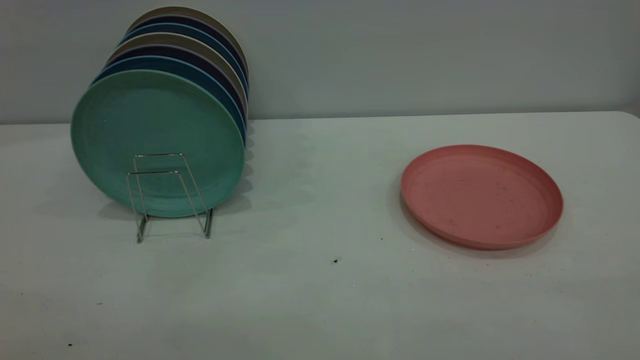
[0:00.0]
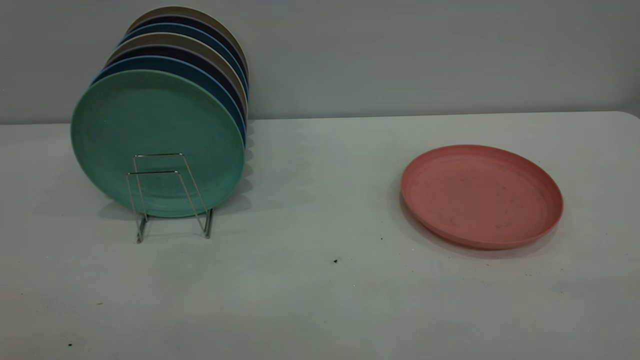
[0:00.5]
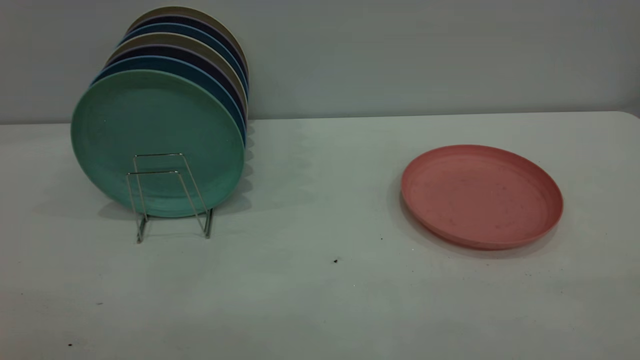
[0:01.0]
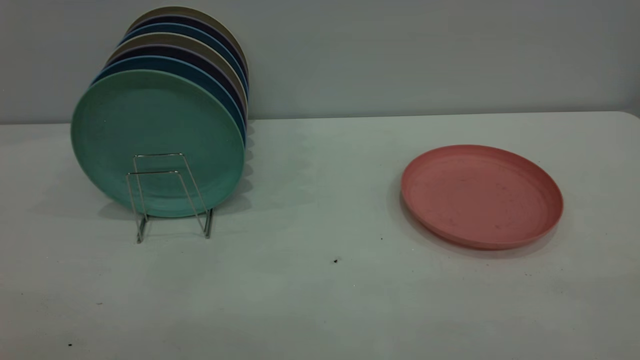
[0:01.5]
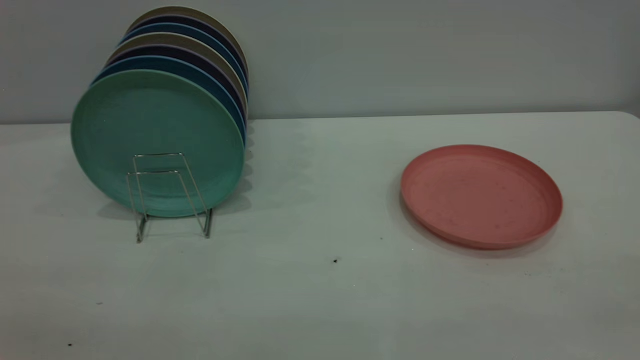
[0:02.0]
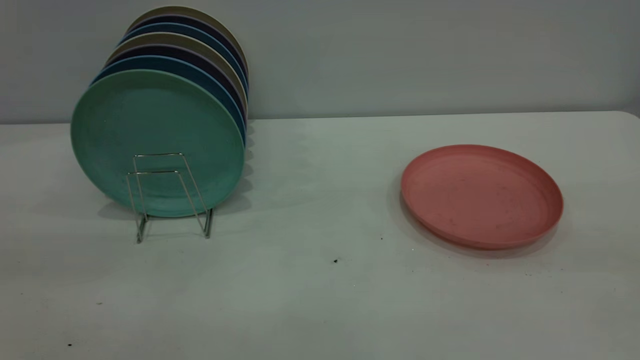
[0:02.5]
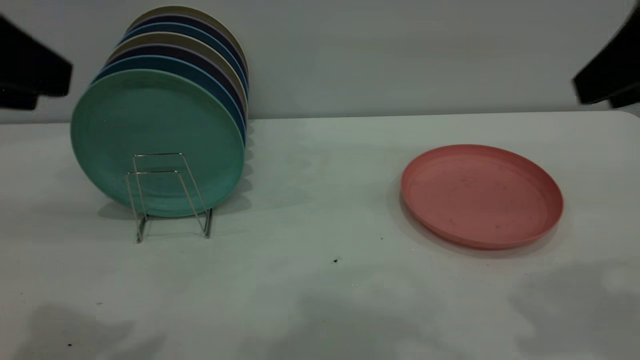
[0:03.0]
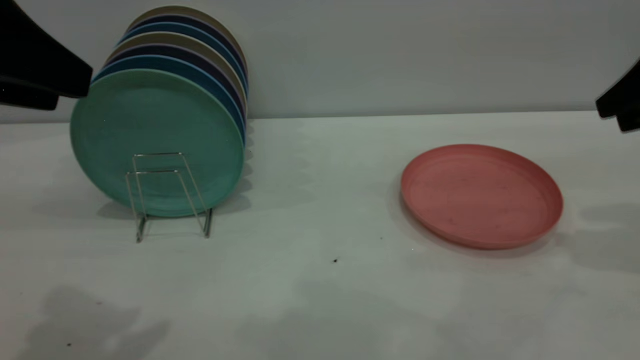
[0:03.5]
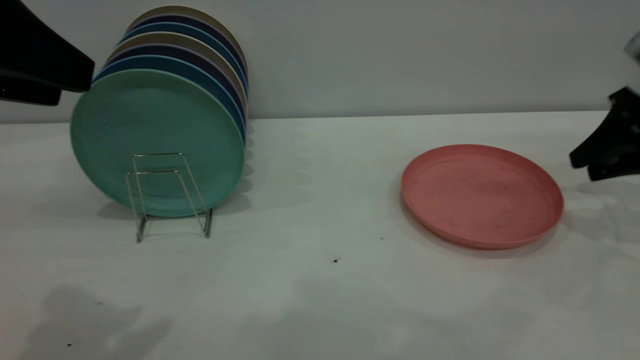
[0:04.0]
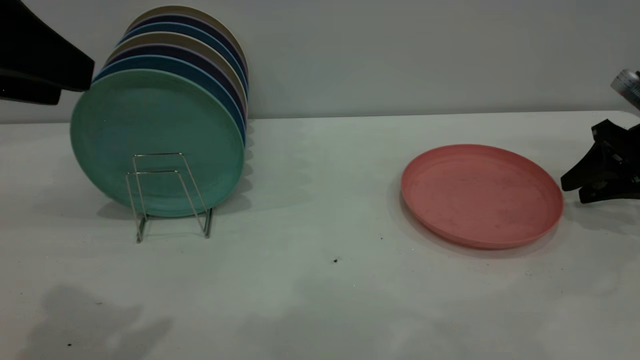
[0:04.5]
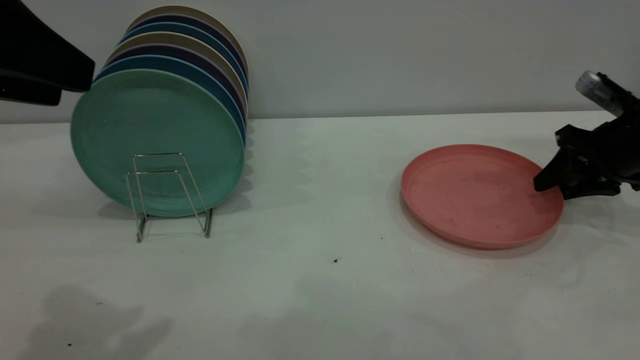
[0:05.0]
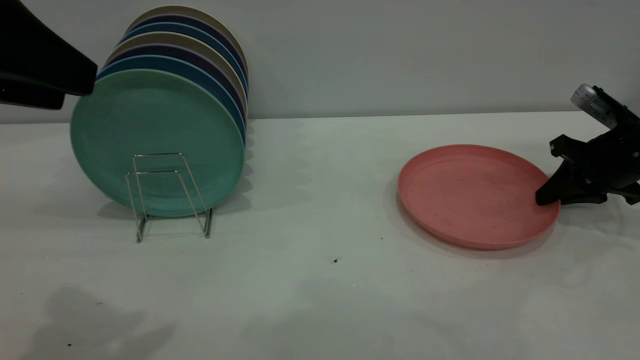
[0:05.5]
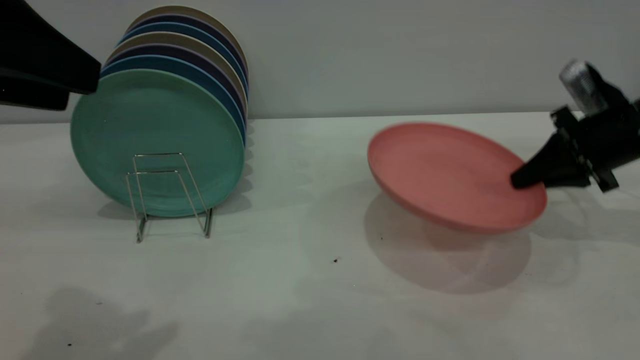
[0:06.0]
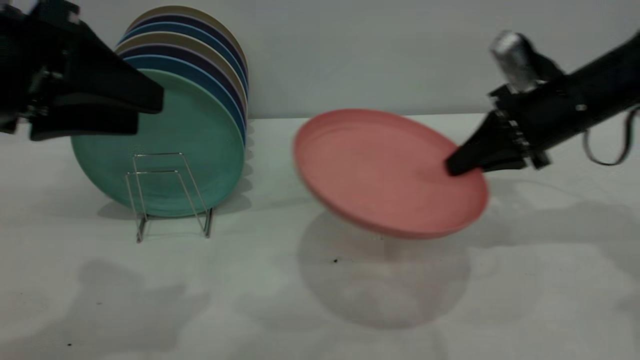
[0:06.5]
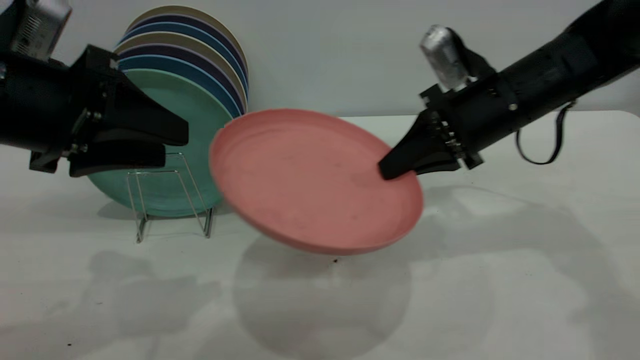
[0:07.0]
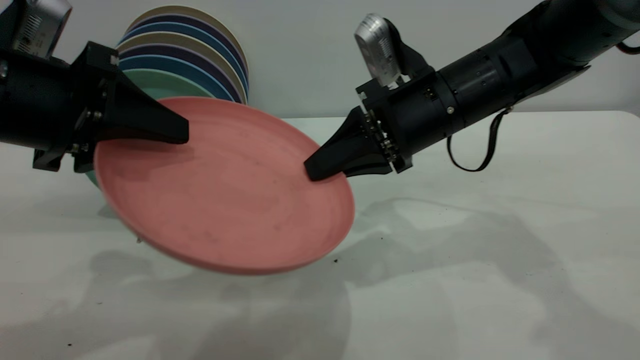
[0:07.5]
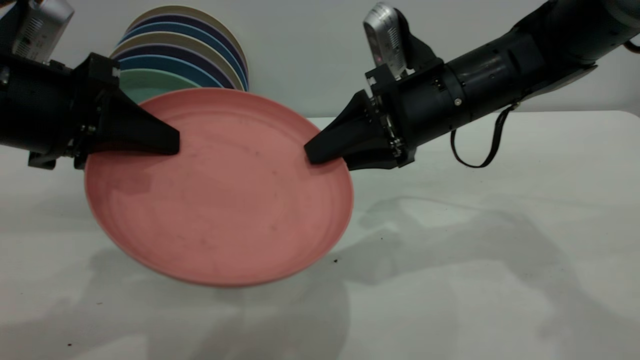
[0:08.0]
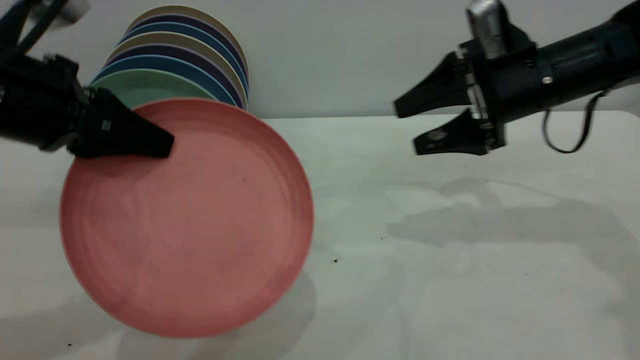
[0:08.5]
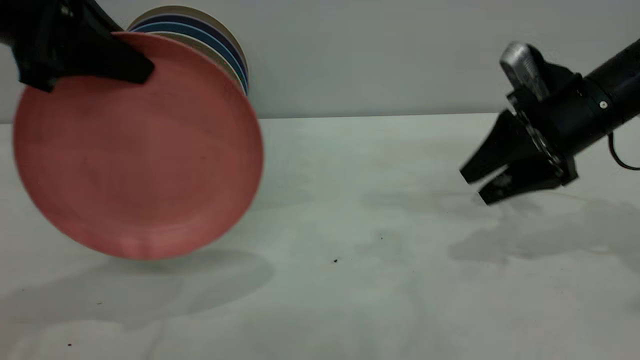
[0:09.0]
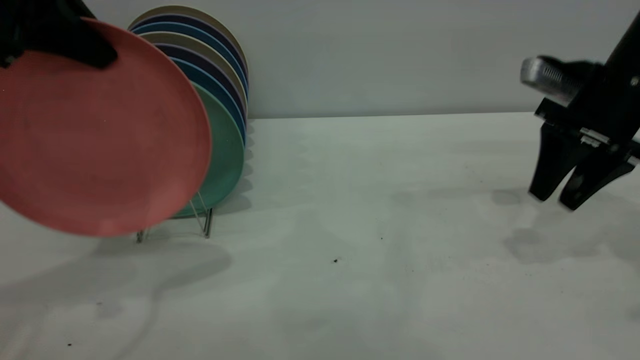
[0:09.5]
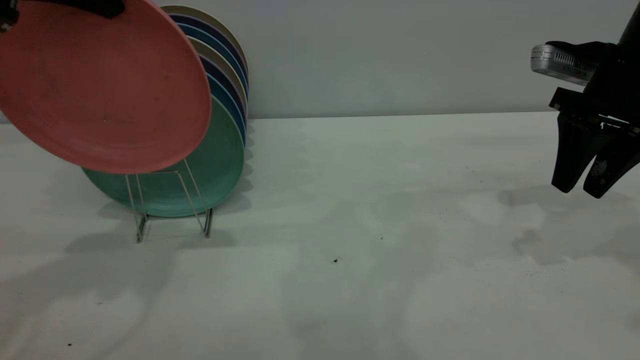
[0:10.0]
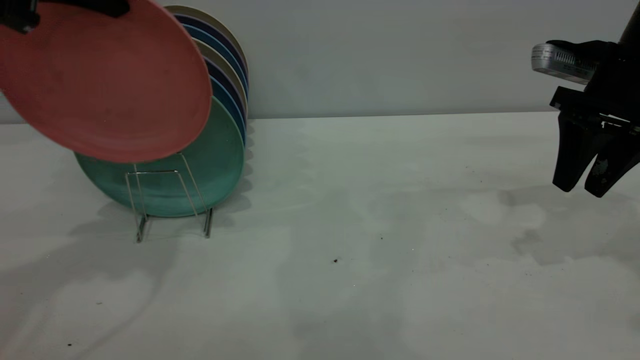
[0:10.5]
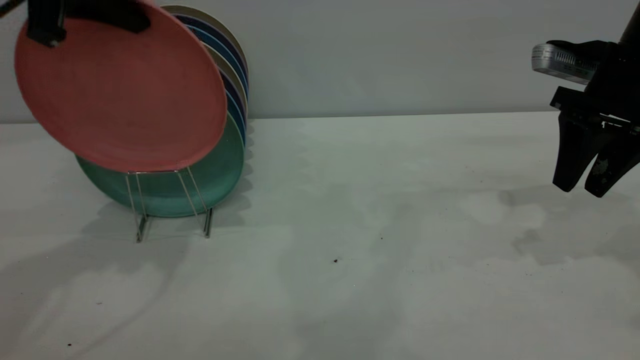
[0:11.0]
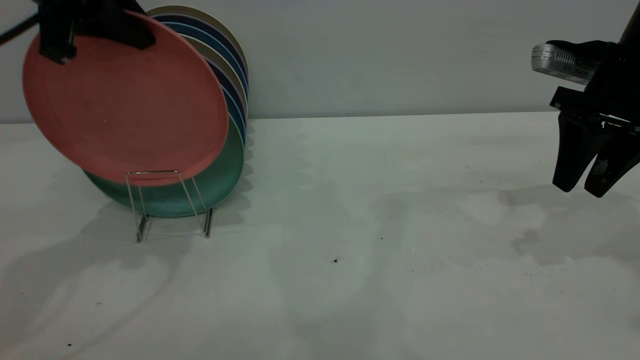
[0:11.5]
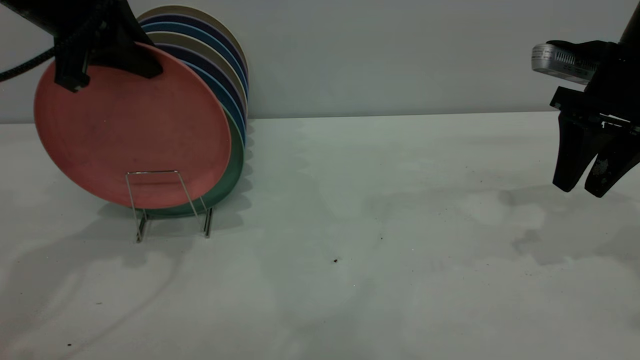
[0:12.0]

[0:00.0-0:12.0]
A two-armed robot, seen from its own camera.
Task of the whole recording: the right gripper grasp the pink plate, the right gripper pass the pink plate to the left gripper, and the left gripper place the pink plate on the plate rack.
Step, 0:00.0 to 0:06.0: Pick up the plate with the right gripper.
Step, 0:06.5 to 0:10.0: Pass the plate from the right gripper to the left gripper.
0:02.0 to 0:04.0: The left gripper travels forward by approximately 20 cm. Meanwhile the right gripper travels forward and downward by roughly 50 cm.
0:04.0 to 0:06.0: The right gripper is displaced to the left by some 5 cm, and closes.
0:06.0 to 0:08.0: The right gripper moves to the left, some 20 cm, and opens up, while the left gripper moves downward and forward, about 10 cm, and closes its fingers.
0:08.0 to 0:10.0: The left gripper travels upward and forward by approximately 15 cm, while the right gripper moves to the right, roughly 15 cm.
0:10.0 to 0:12.0: The left gripper shifts about 10 cm downward and forward.

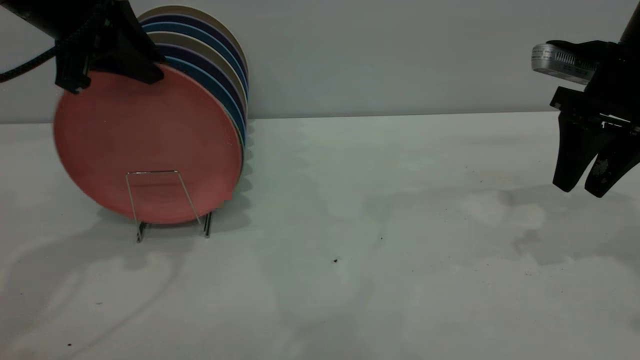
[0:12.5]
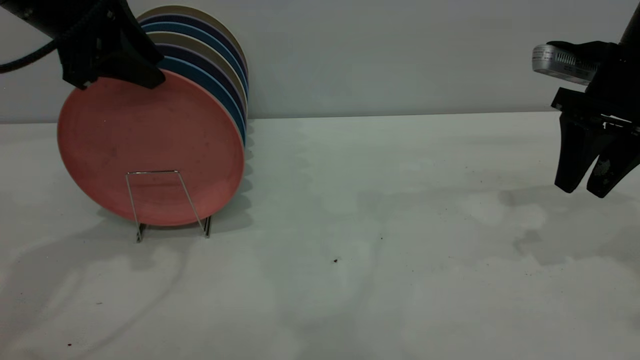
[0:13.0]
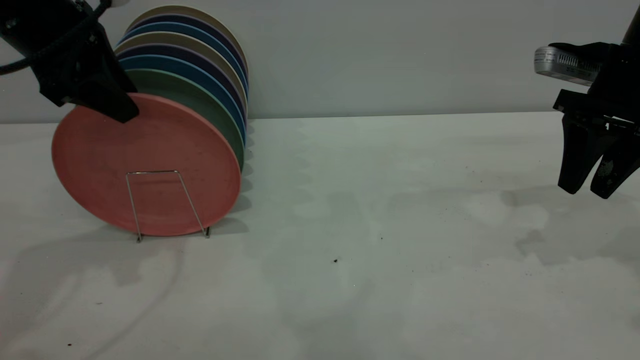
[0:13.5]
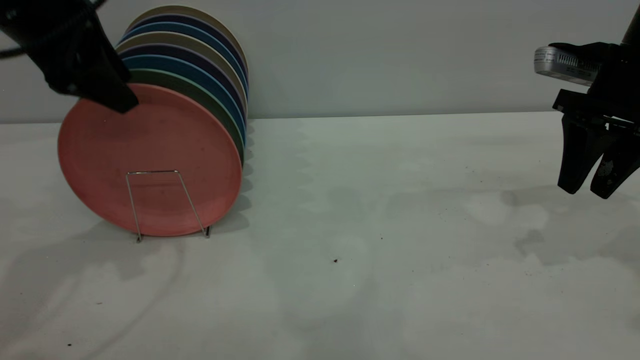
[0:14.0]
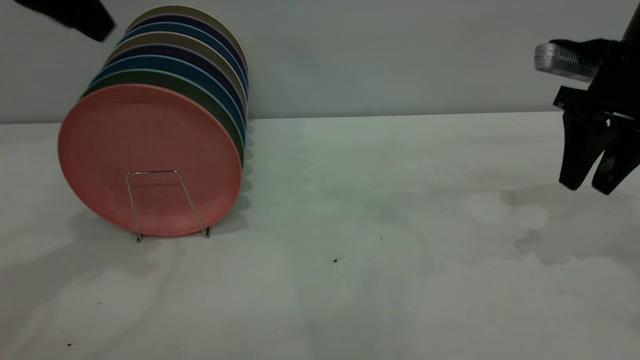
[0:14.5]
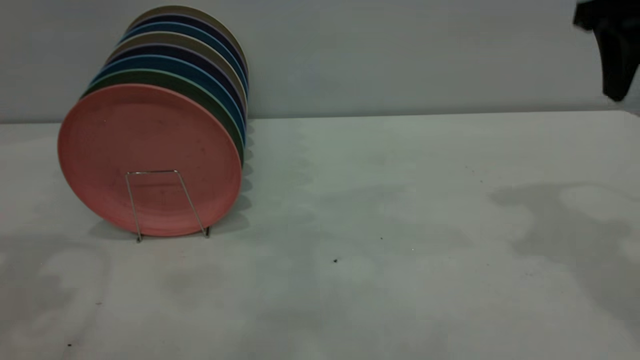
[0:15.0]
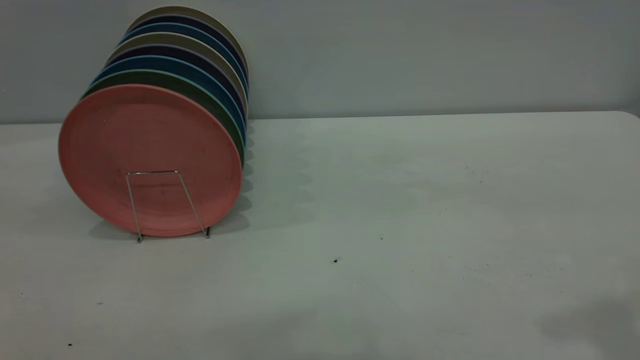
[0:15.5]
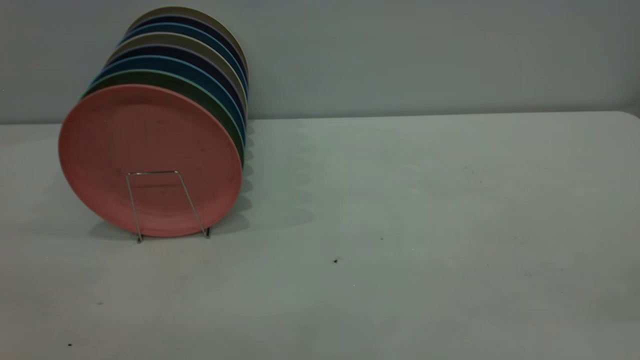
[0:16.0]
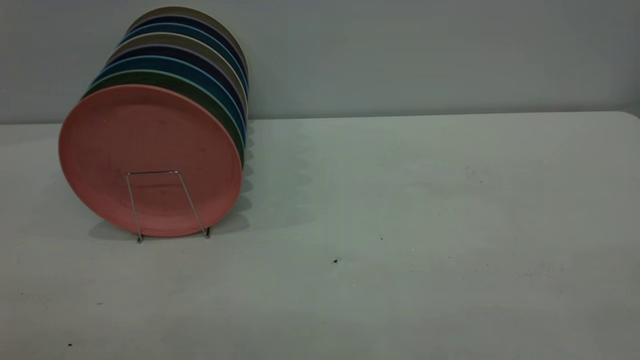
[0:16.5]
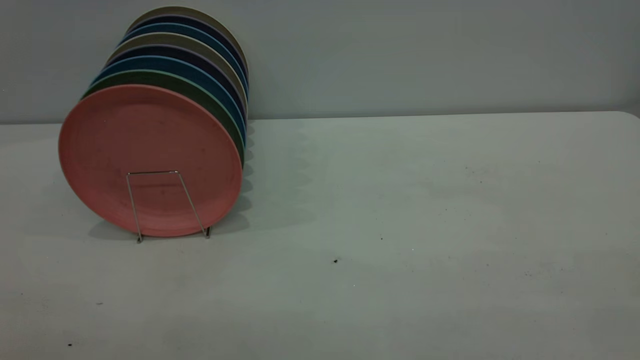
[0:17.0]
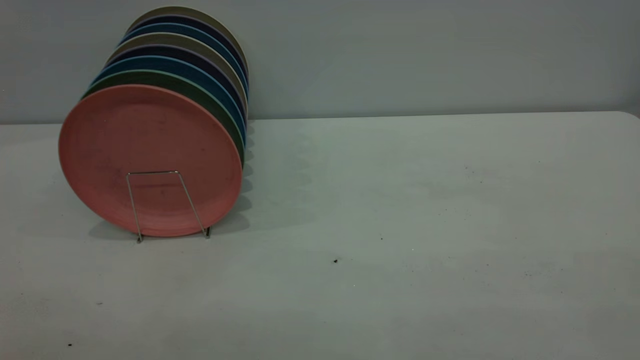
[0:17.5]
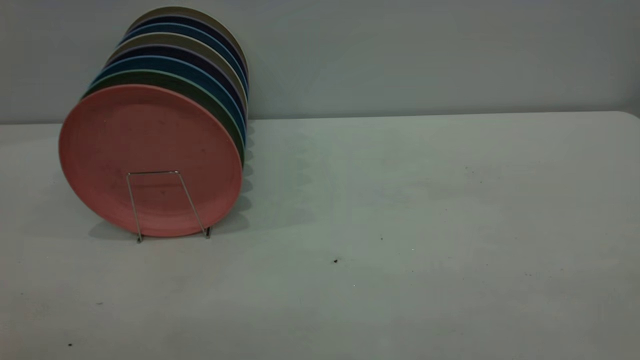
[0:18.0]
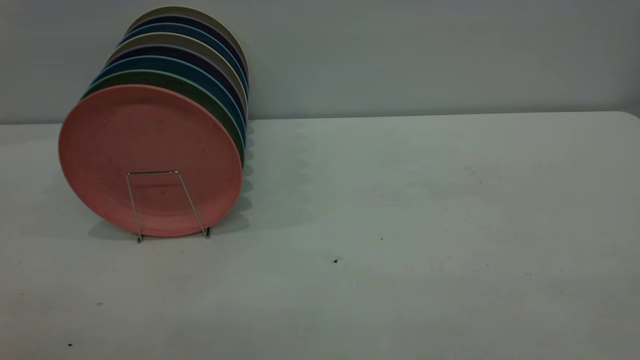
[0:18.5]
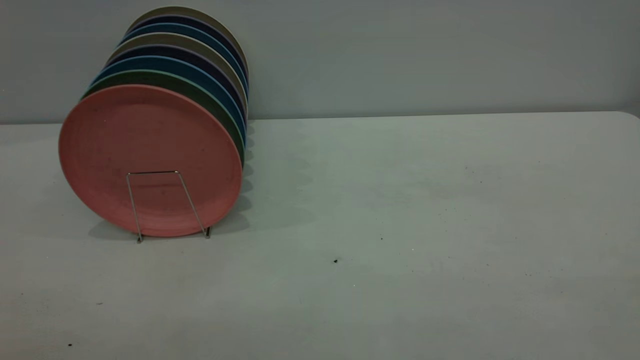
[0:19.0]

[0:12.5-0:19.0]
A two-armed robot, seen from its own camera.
Task of the whole recording: the right gripper grasp the pink plate, the right gripper pass the pink plate to the left gripper, and the left gripper place the pink plate on the plate rack.
Step, 0:12.5 to 0:14.5: Place the plate on the shelf.
0:12.5 to 0:14.5: The left gripper travels upward by about 5 cm, and opens its fingers.
0:14.5 to 0:17.0: The two grippers go roughly 40 cm backward.
